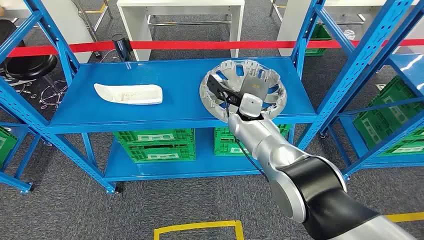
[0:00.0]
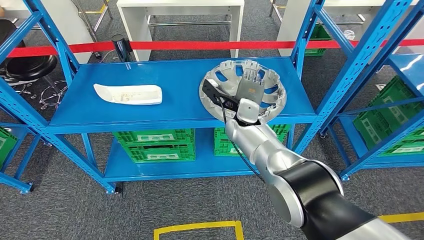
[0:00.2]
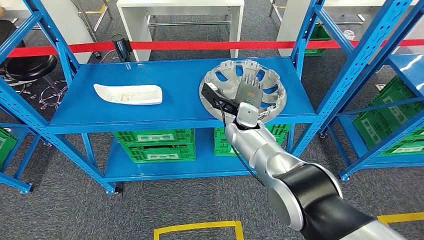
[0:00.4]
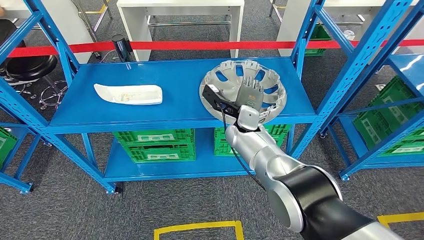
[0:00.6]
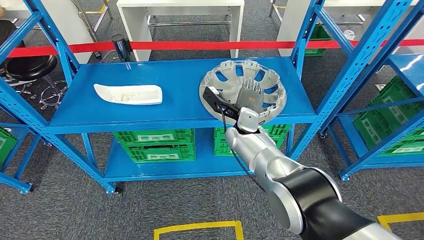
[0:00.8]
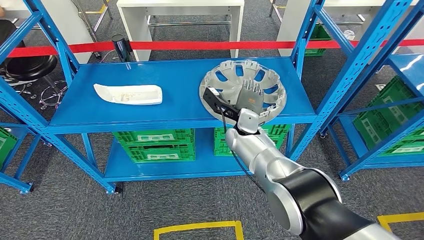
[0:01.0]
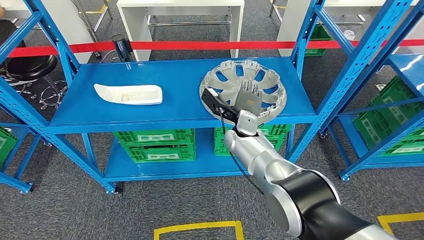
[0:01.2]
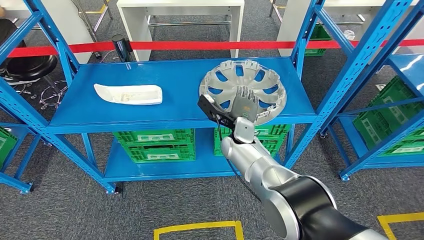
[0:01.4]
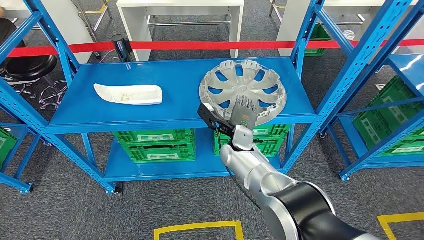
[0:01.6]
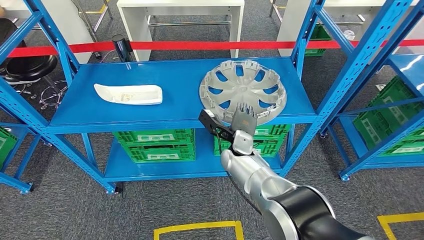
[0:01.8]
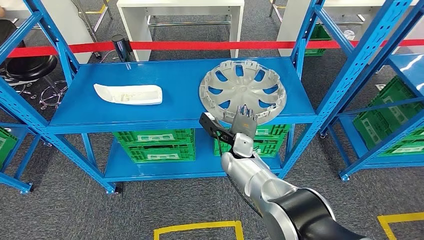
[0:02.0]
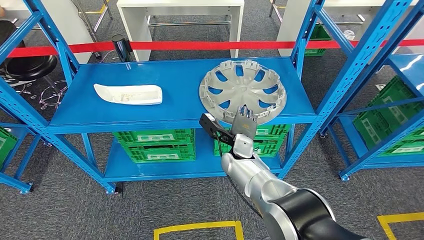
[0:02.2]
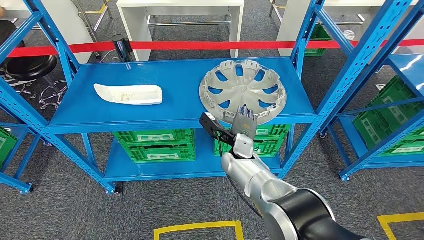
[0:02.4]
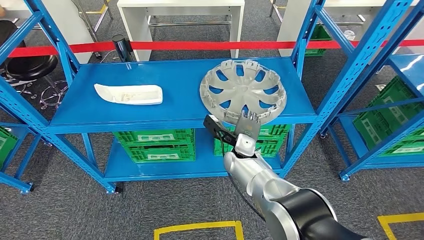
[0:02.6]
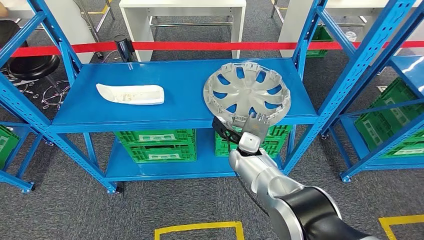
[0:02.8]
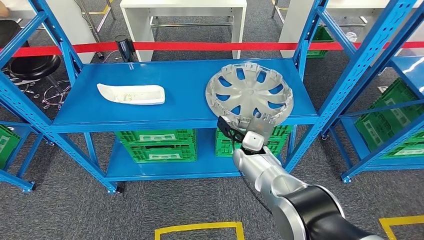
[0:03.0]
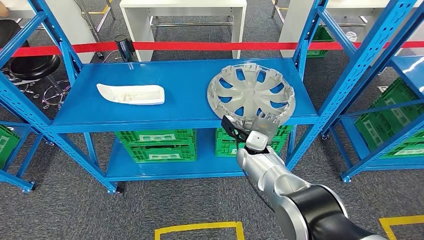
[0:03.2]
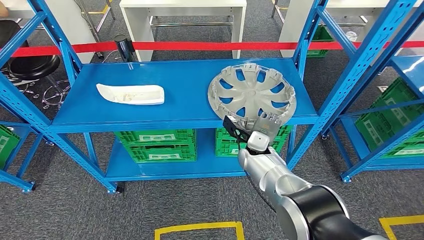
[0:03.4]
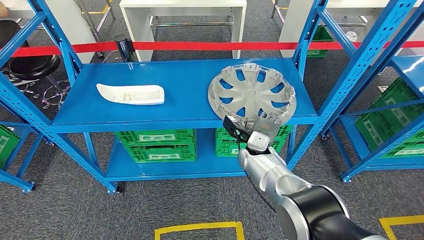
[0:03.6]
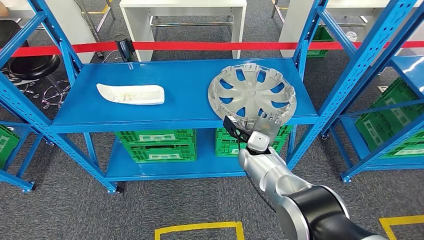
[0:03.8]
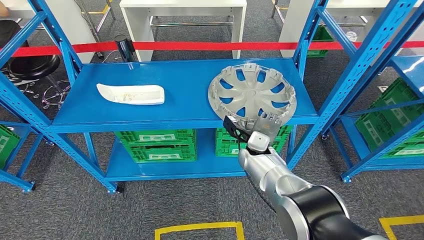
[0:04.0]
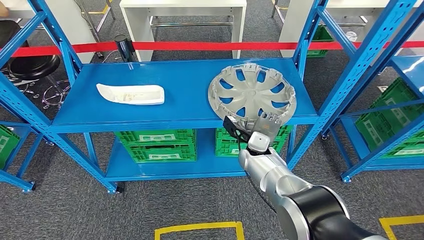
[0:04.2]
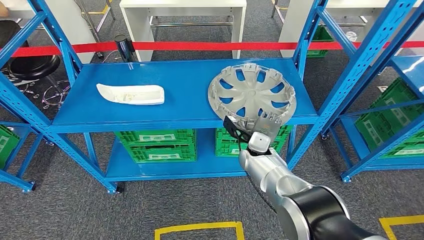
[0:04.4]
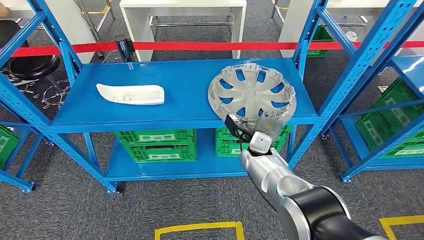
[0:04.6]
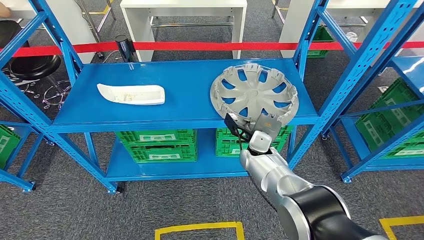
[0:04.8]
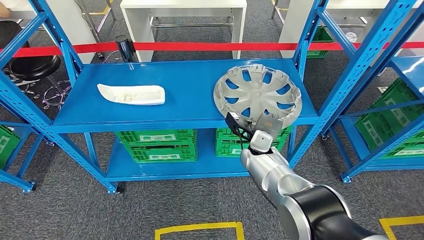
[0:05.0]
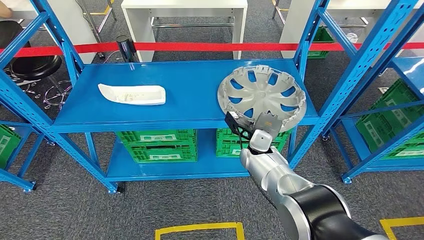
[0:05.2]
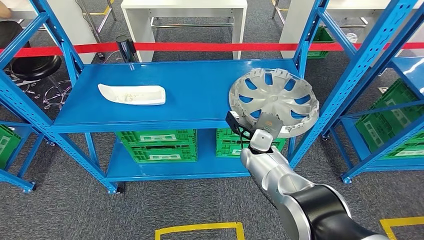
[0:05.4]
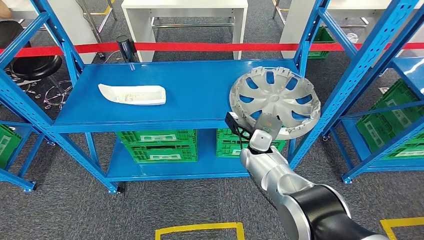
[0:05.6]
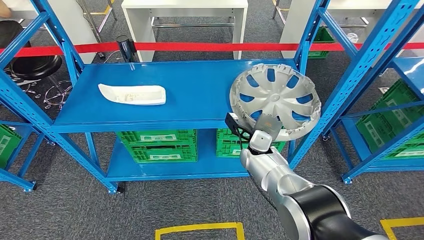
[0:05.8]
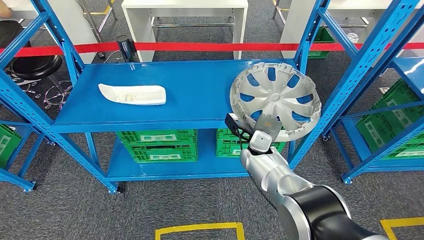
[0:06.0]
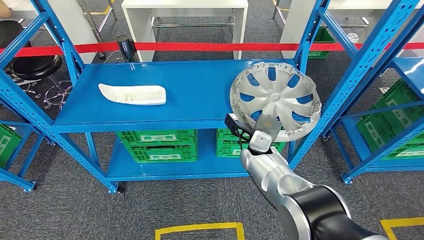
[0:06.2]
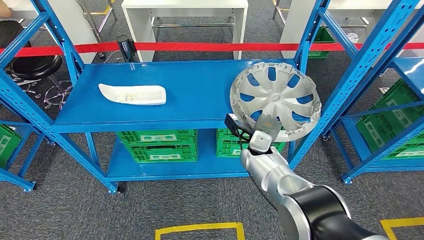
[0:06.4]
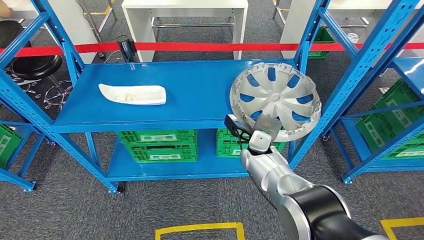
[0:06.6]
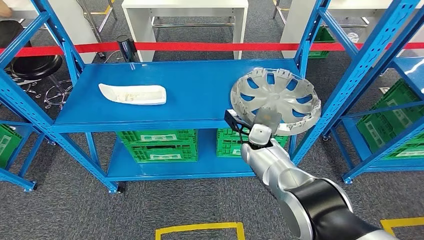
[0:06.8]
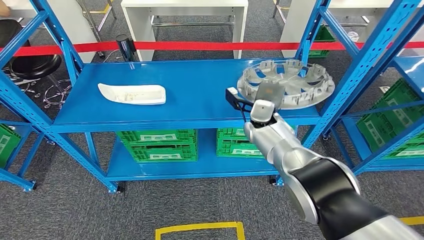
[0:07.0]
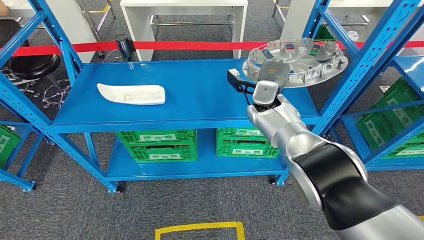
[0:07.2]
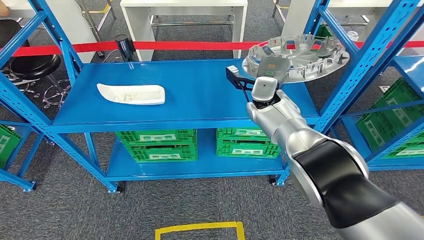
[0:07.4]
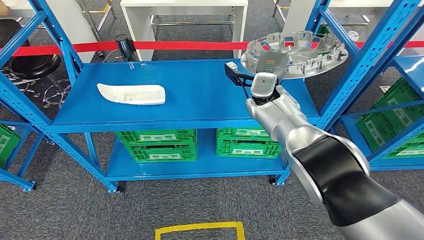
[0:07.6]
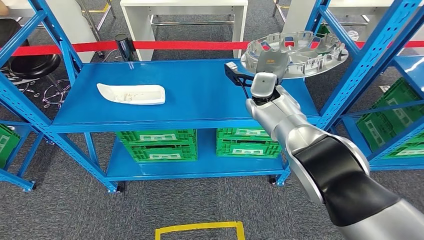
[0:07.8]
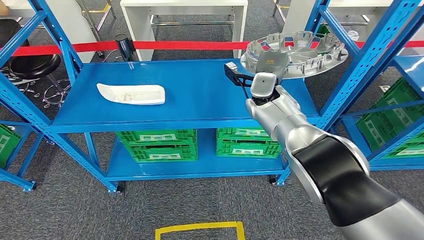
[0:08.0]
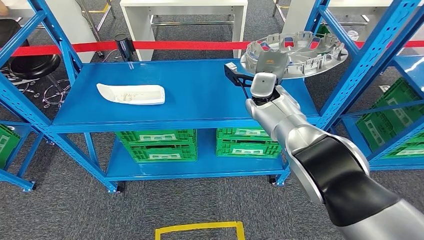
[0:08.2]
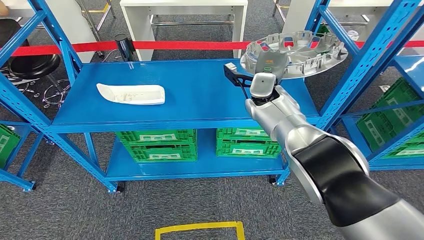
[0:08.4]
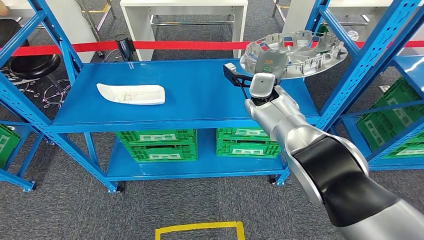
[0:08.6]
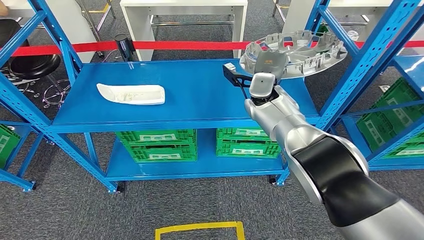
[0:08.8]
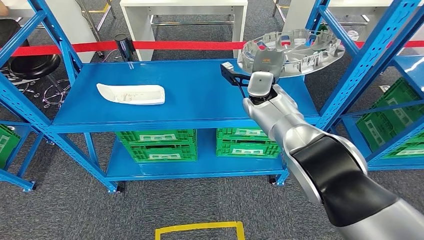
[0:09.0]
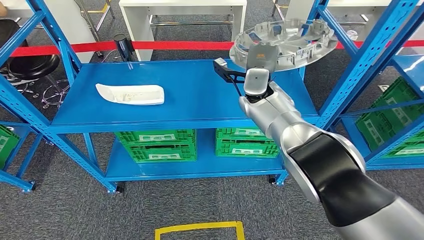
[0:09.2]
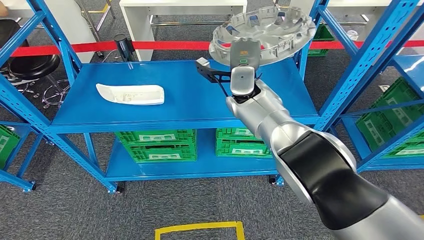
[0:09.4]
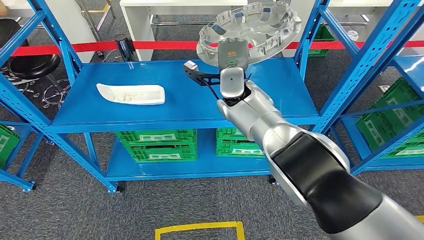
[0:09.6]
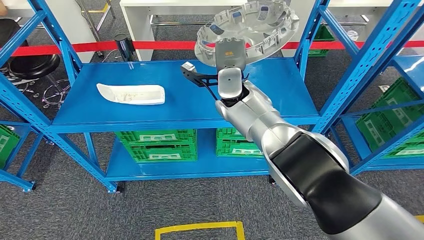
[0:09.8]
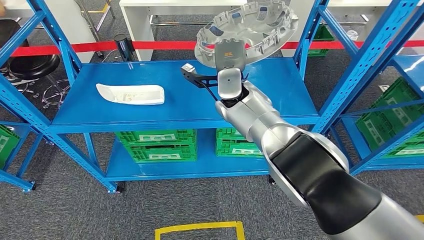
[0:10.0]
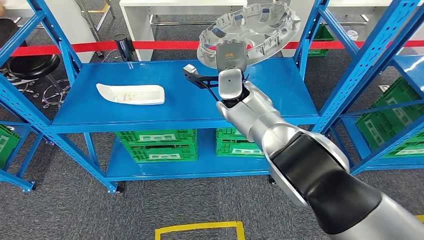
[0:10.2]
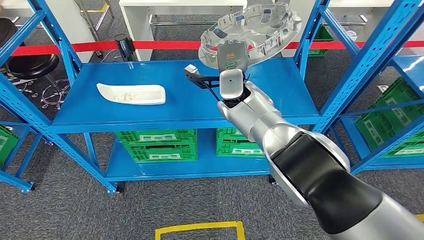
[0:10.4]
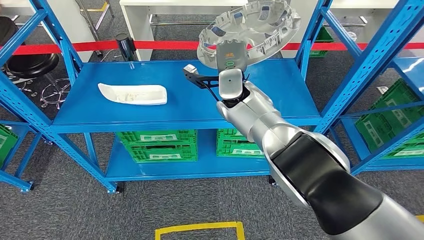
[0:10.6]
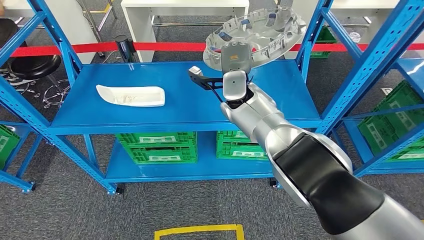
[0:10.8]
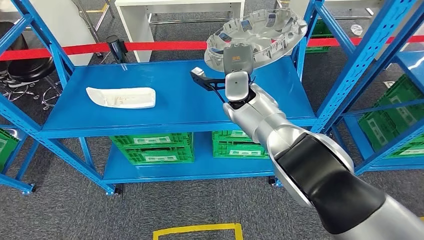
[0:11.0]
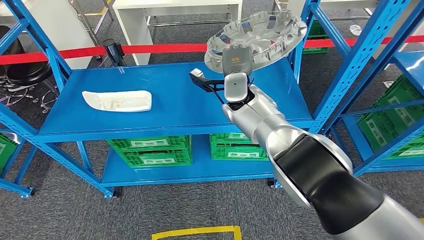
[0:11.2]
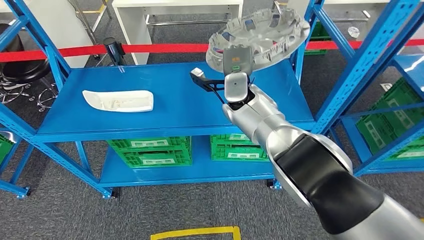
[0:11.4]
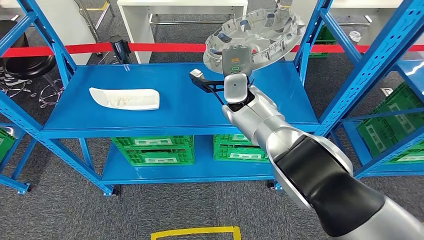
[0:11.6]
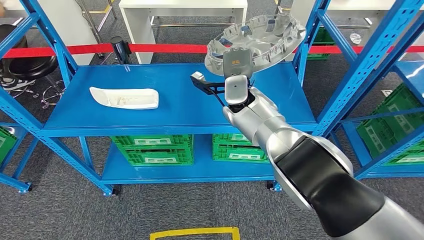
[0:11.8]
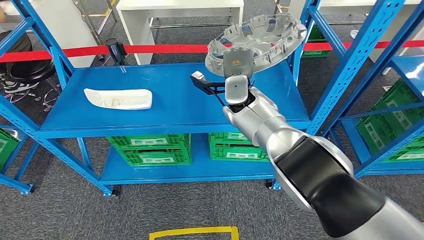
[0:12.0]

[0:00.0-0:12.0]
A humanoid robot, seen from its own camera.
Step, 0:00.0 to 0:09.2: Pick up the small component from the shelf.
0:03.0 to 0:04.4: The hands move only a little.
0:04.4 to 0:06.0: Both hands stay about where they are.
0:07.6 to 0:09.0: Neither hand changes place.
0:09.0 to 0:10.4: The right hand moves to the left, approximately 10 cm.

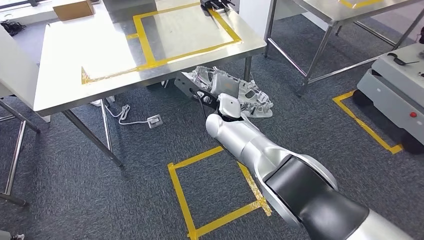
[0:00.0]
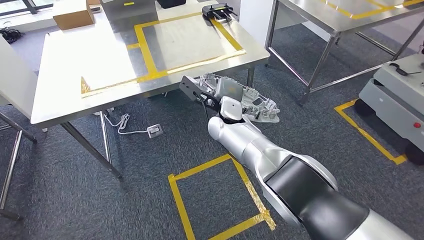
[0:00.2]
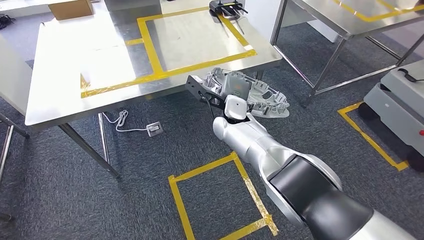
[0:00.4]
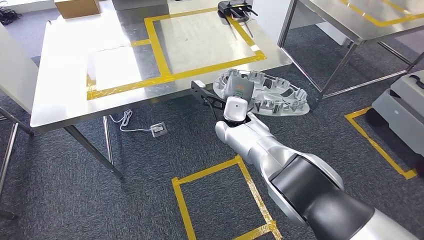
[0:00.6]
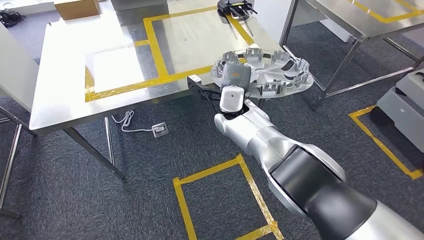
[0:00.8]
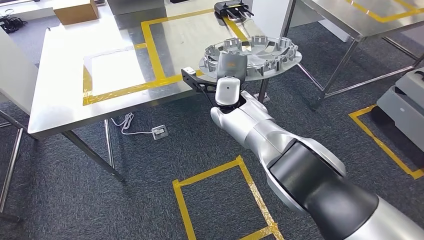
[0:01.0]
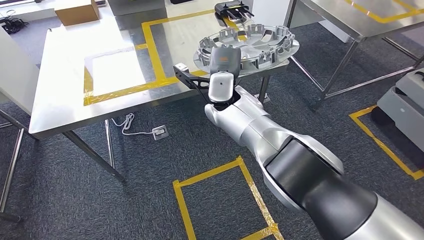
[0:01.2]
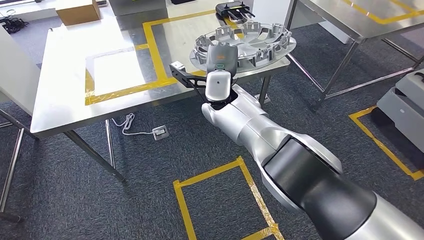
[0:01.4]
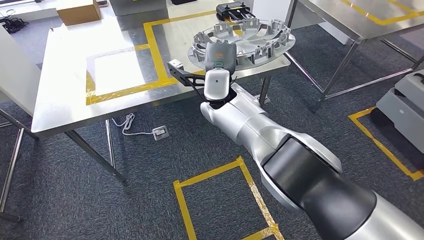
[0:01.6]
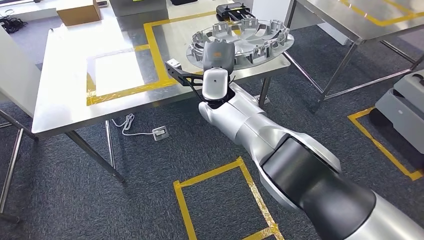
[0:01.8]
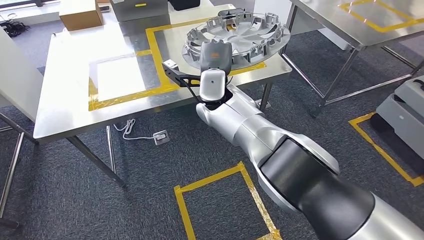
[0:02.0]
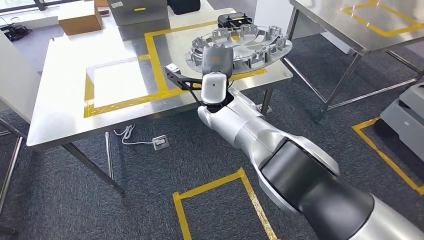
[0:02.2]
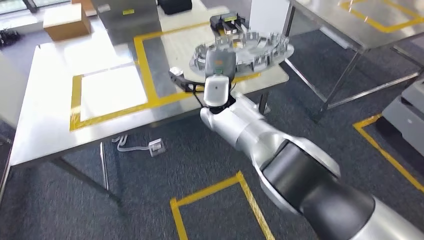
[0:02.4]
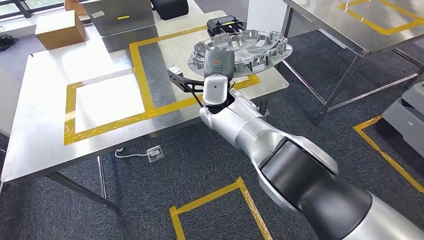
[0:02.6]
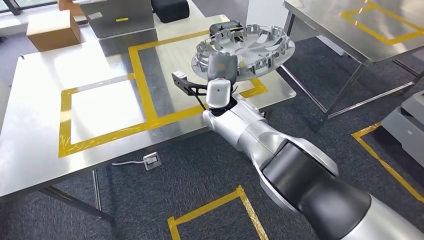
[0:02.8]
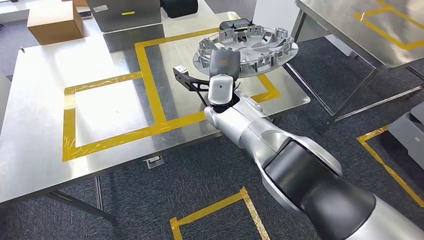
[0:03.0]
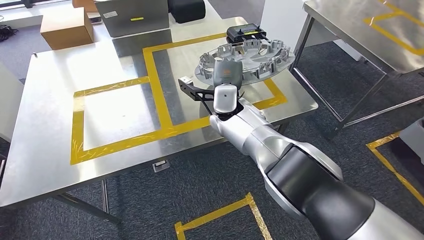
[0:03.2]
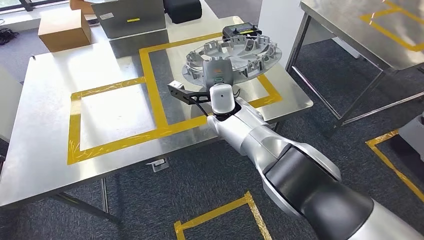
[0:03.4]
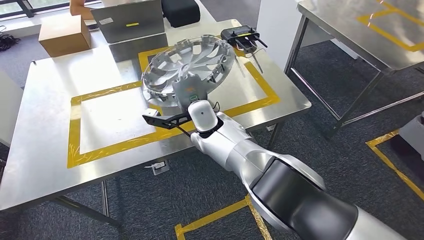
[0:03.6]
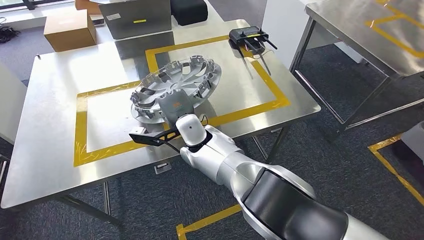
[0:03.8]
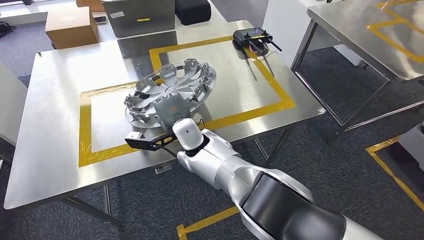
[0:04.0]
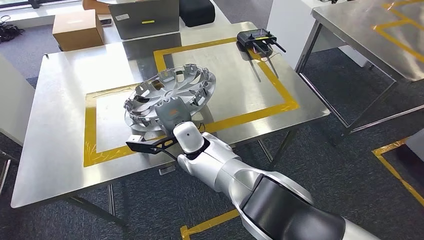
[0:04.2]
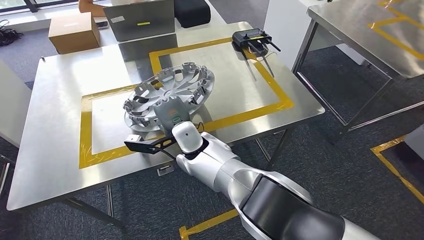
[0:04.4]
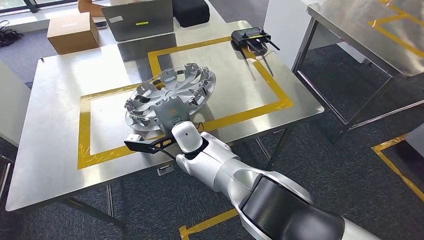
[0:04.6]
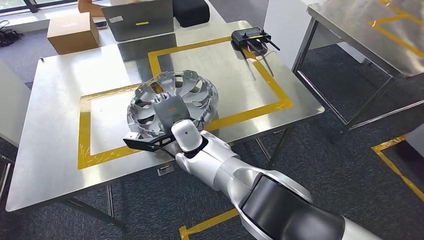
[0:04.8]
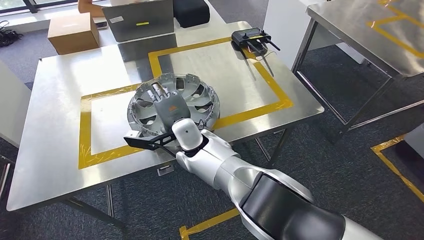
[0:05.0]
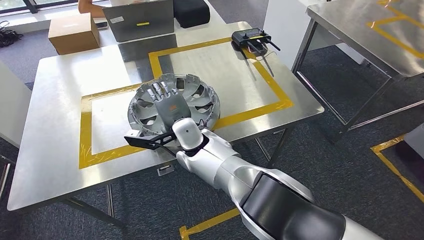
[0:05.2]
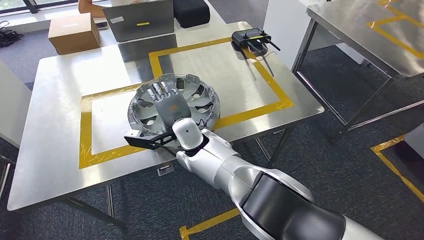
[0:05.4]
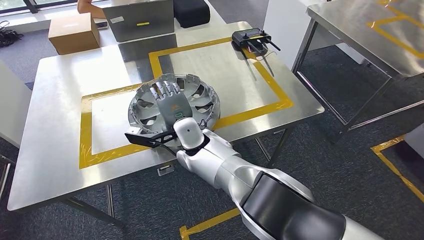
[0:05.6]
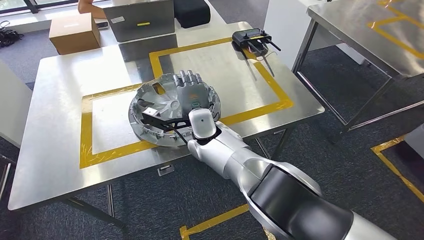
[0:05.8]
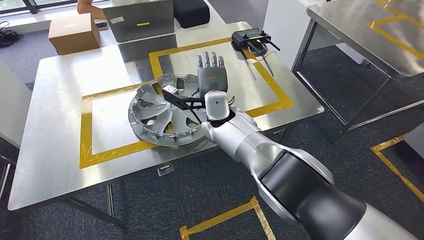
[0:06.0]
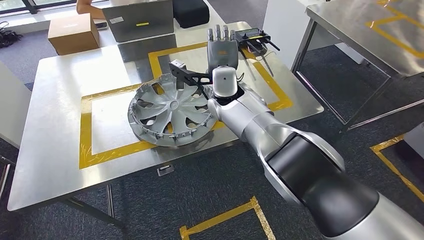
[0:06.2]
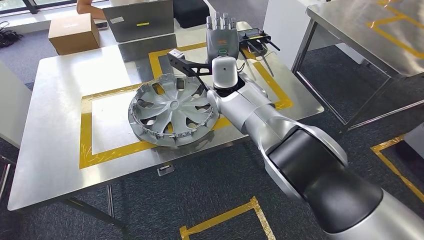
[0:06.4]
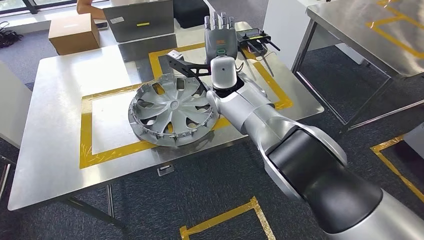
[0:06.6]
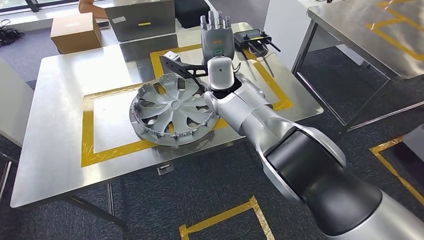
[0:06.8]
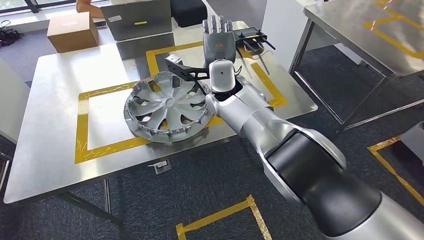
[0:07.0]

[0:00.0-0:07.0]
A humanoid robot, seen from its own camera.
Step, 0:00.0 to 0:02.2: Move the small component to the workbench.
Step, 0:02.8 to 0:06.8: Insert the small component into the corresponding slot on the workbench.
